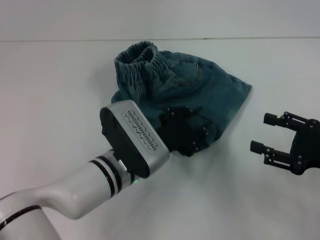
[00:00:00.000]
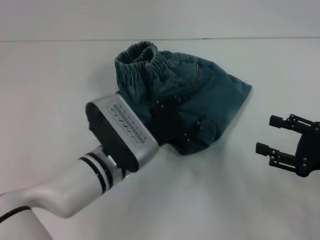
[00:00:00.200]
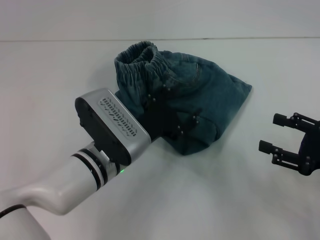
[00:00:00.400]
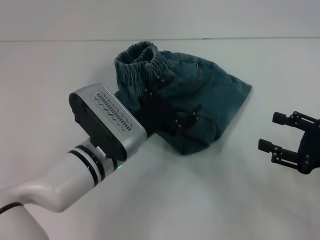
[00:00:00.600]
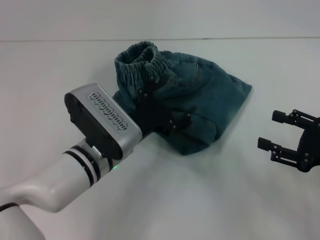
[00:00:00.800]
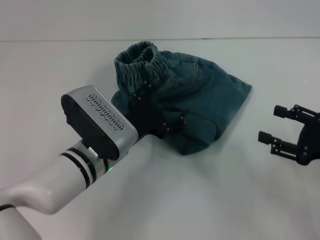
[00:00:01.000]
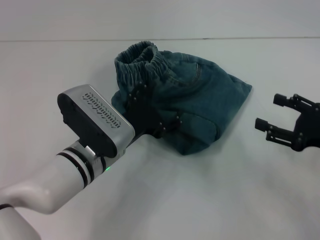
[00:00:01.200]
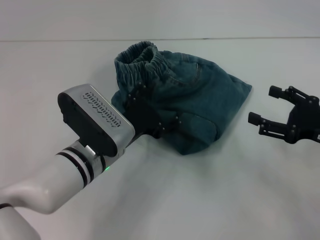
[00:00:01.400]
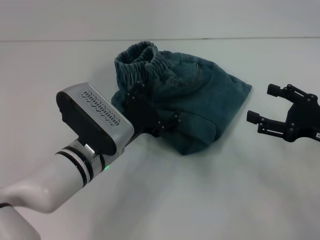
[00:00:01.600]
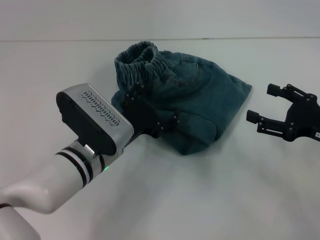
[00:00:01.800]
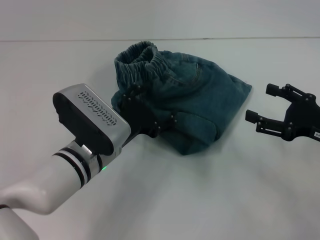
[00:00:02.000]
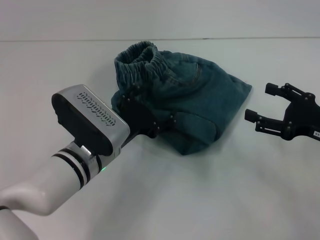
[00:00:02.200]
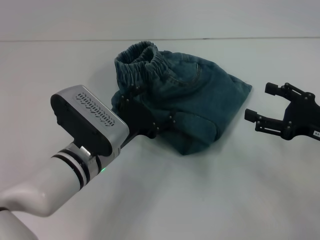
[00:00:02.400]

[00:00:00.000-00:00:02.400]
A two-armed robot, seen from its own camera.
00:00:00.000 to 00:00:01.200: The left gripper opens up.
00:00:01.200 to 00:00:02.400: The grippers stay close to where they were, moving slightly.
